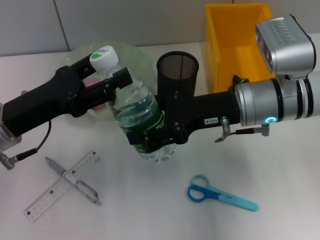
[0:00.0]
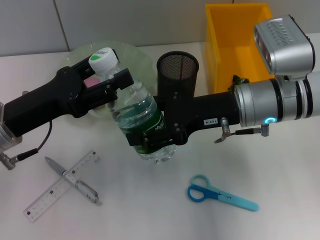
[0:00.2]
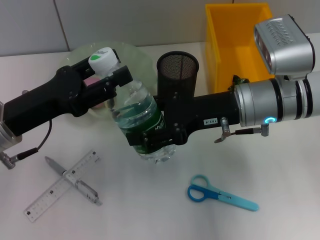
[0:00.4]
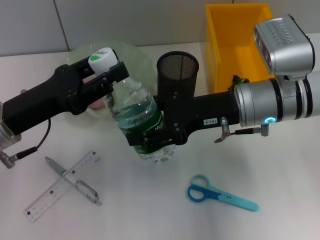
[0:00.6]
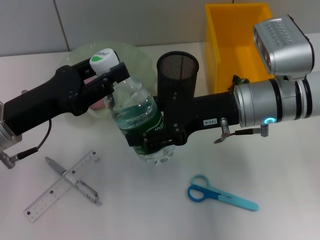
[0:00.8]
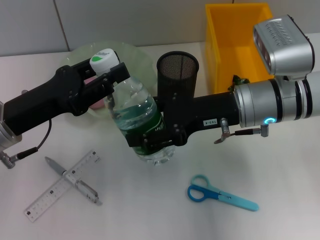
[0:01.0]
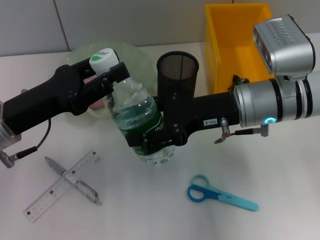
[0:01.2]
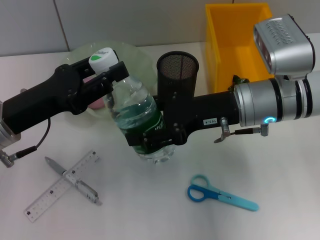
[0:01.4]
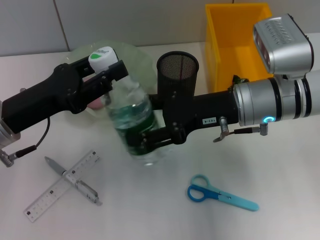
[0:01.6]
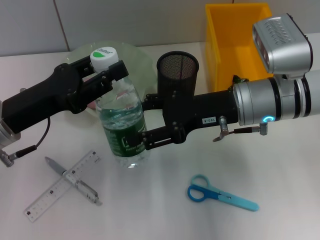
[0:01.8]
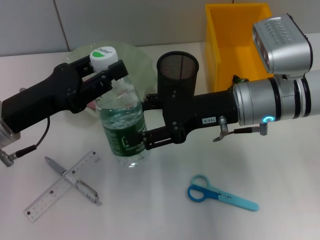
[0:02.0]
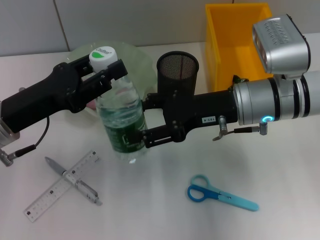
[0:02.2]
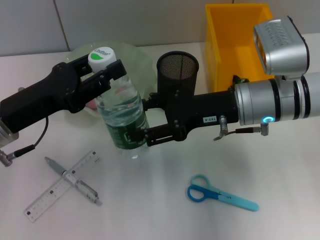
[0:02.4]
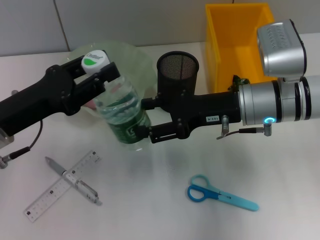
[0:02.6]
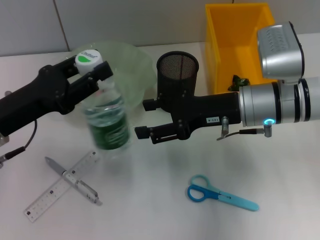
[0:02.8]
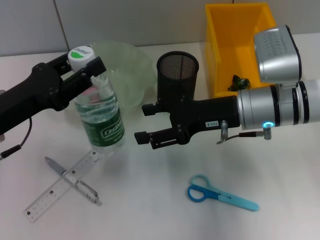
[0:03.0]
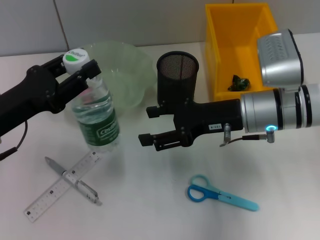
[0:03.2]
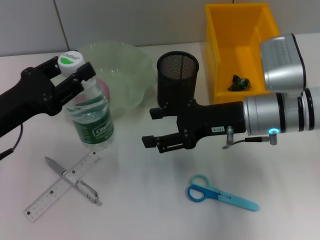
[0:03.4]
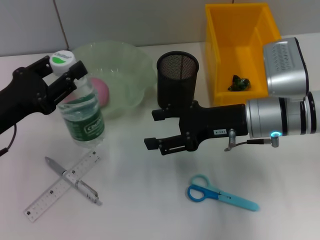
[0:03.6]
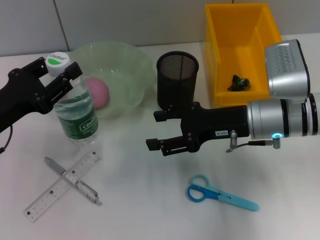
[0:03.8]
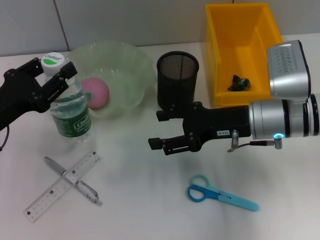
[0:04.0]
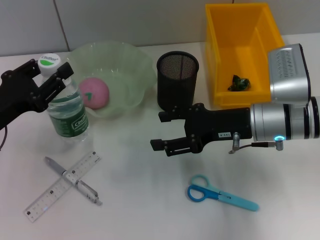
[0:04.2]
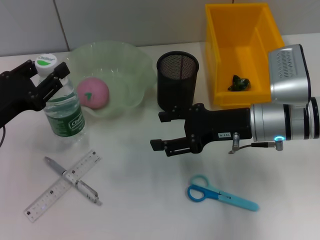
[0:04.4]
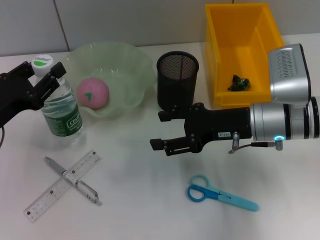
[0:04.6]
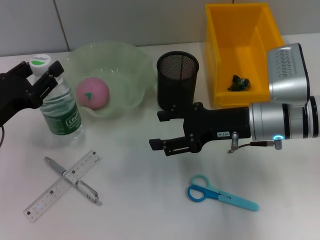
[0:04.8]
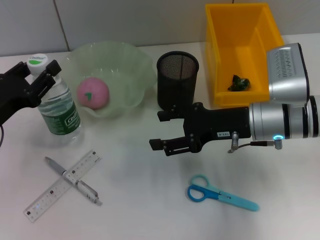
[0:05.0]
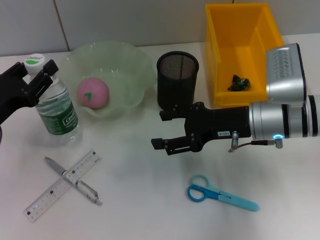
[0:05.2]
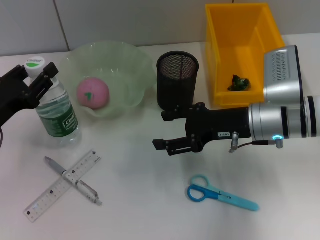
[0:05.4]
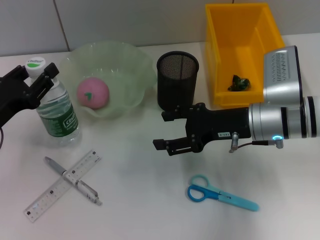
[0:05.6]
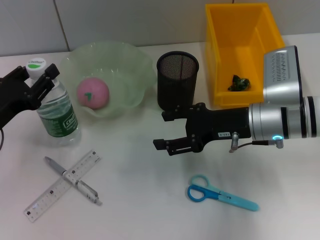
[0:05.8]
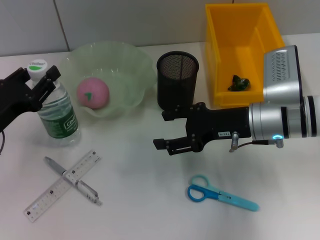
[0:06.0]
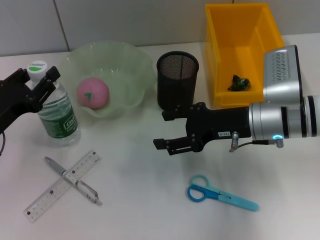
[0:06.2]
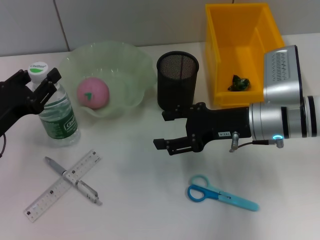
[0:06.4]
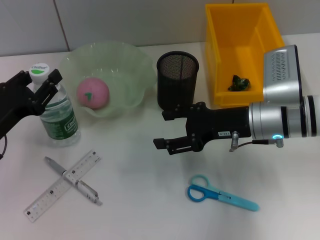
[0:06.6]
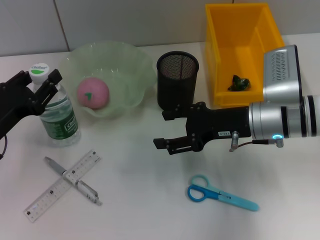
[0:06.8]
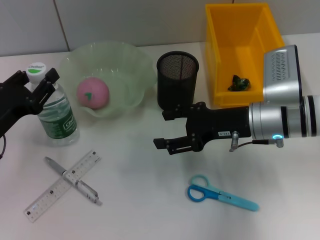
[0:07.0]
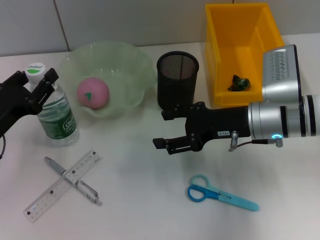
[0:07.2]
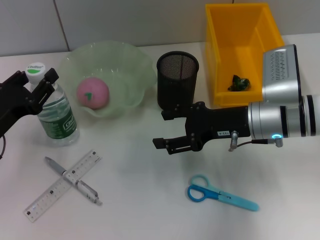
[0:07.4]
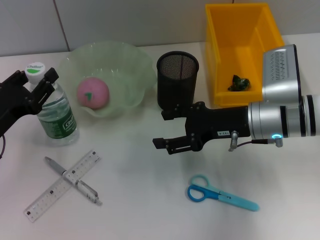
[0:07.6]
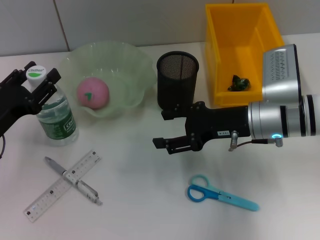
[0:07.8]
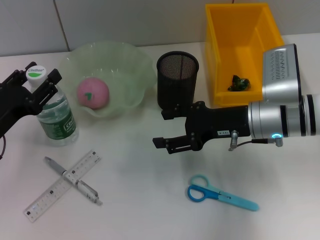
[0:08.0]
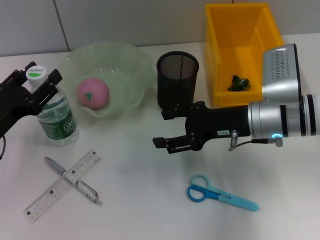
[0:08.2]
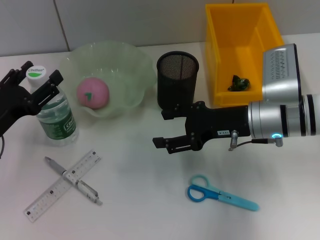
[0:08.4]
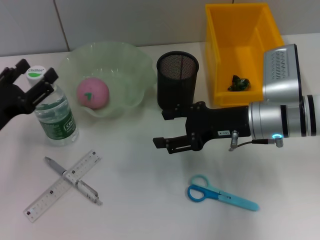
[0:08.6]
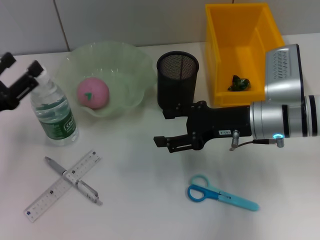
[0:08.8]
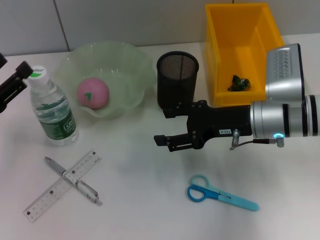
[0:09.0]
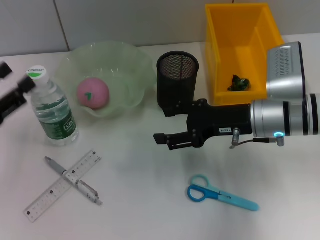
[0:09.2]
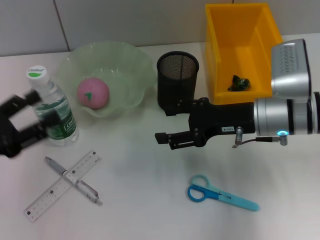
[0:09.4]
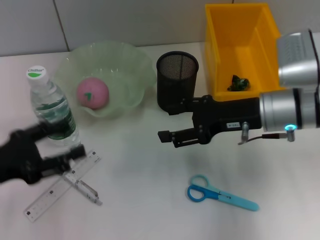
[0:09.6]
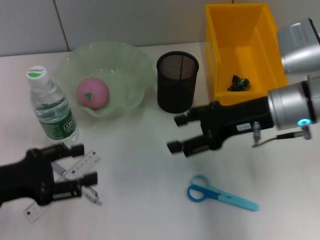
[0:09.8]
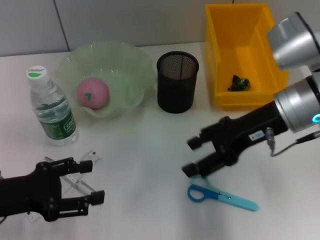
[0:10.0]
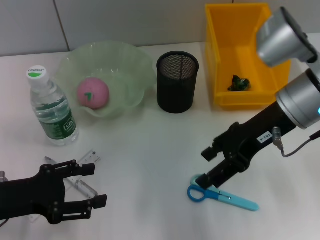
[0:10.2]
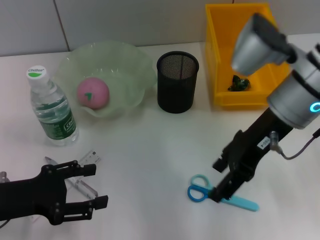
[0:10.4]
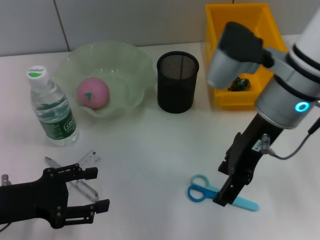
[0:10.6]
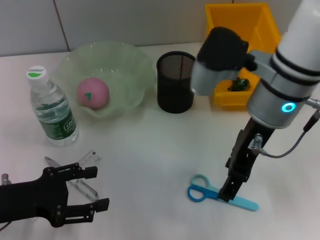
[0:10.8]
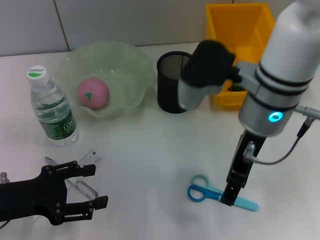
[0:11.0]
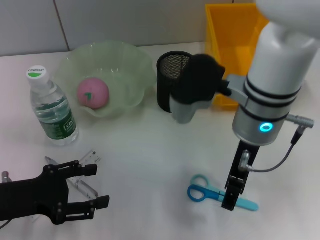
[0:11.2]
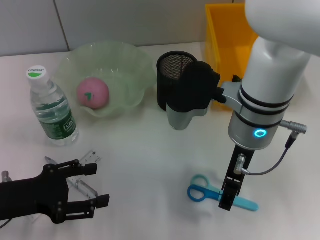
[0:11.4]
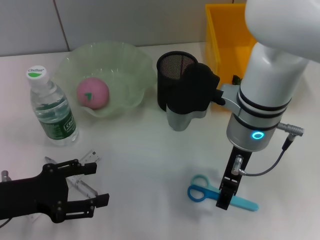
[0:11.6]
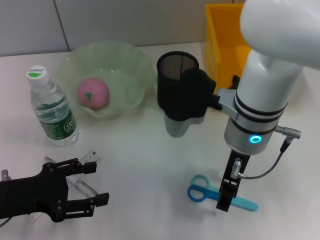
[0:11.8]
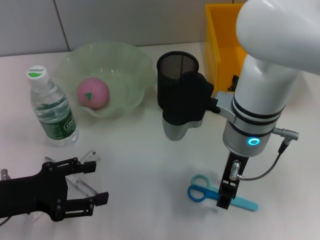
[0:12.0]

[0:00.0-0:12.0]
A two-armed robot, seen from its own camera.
Step, 0:00.0 to 0:02.2: Pass the water bottle from the right hand to the left hand.
Step, 0:02.6 to 0:07.8: Place the water bottle on the table with the left hand.
0:00.0 to 0:01.6: The left gripper closes its fingers.
0:01.6 to 0:03.0: The grippers stay close to where they were, moving slightly.
0:04.4 to 0:06.0: The grippers stay close to where they were, moving slightly.
0:06.0 to 0:07.6: Neither gripper changes place.
0:07.6 to 0:09.0: There are only small adjustments of the grippers.
0:09.0 to 0:10.4: The left gripper ends up approximately 5 cm from where it was. The right gripper heads upward, covering about 10 cm.
0:10.4 to 0:12.0: The right gripper travels to the left by roughly 5 cm.

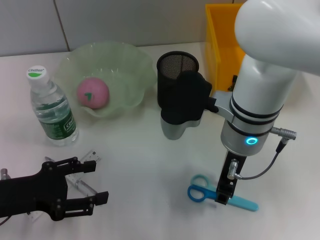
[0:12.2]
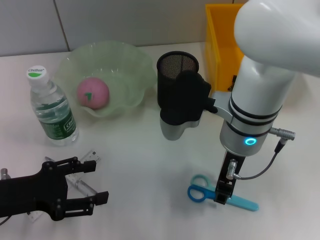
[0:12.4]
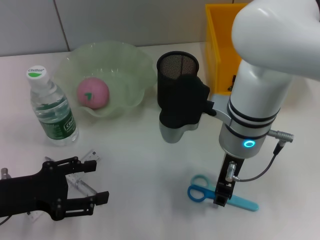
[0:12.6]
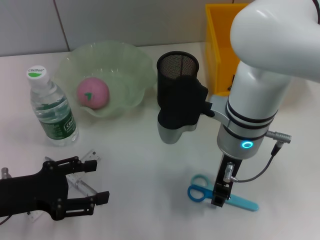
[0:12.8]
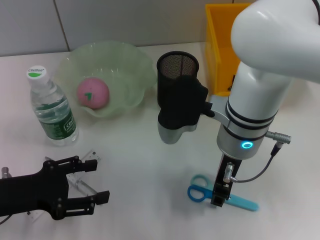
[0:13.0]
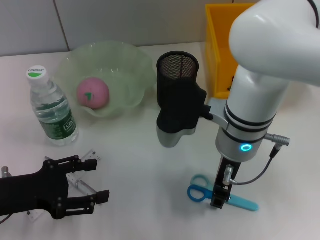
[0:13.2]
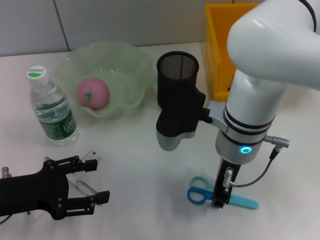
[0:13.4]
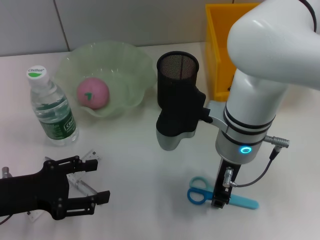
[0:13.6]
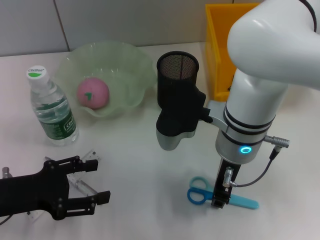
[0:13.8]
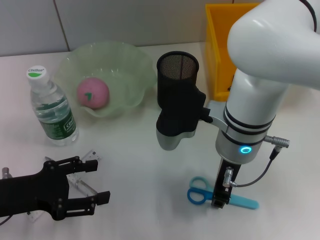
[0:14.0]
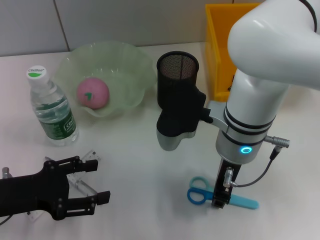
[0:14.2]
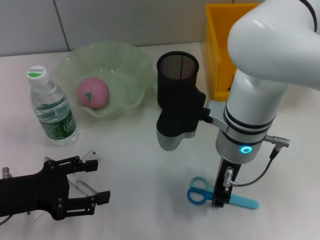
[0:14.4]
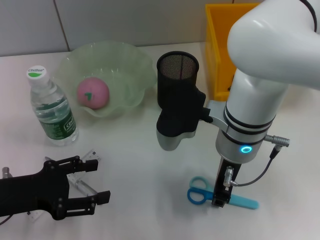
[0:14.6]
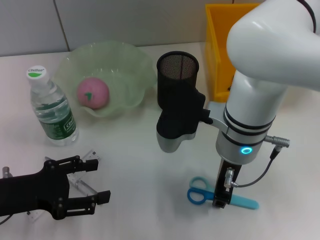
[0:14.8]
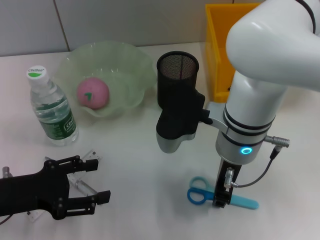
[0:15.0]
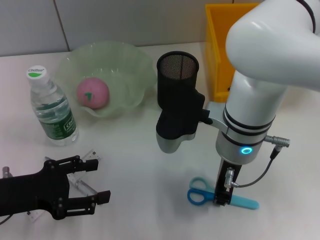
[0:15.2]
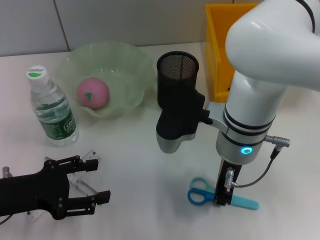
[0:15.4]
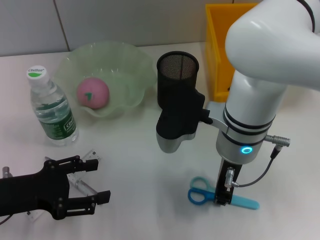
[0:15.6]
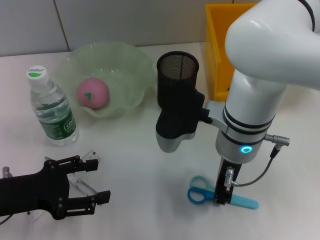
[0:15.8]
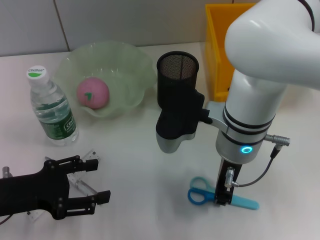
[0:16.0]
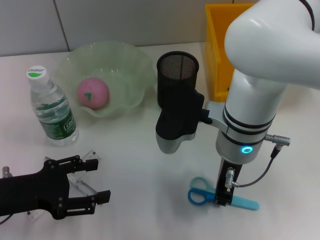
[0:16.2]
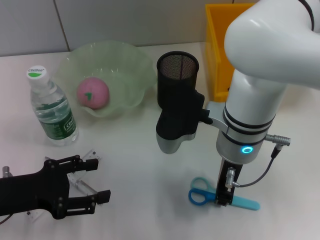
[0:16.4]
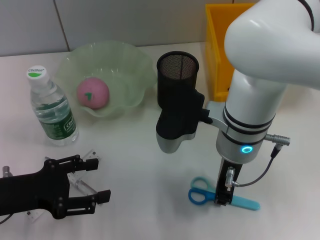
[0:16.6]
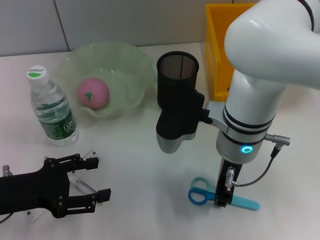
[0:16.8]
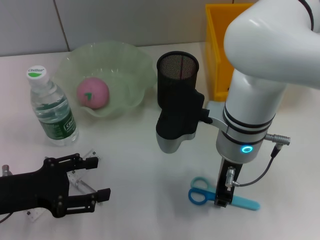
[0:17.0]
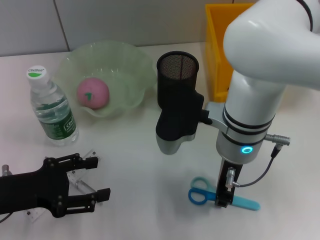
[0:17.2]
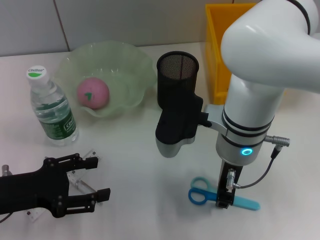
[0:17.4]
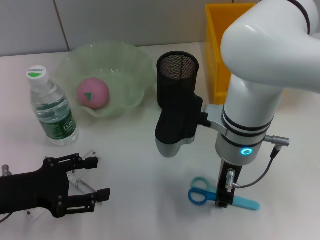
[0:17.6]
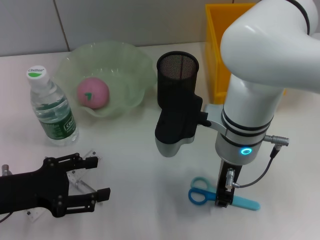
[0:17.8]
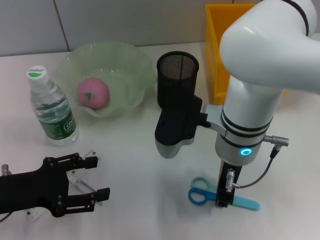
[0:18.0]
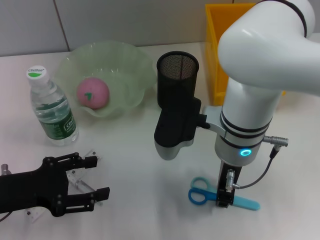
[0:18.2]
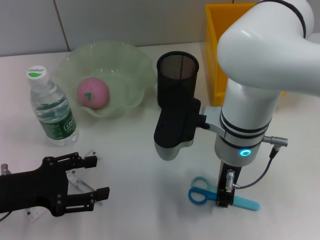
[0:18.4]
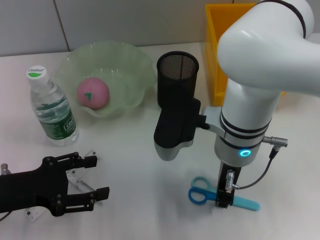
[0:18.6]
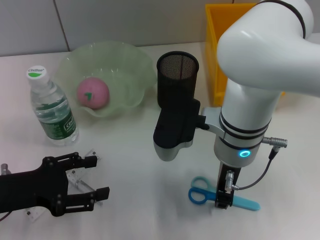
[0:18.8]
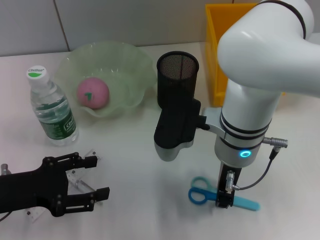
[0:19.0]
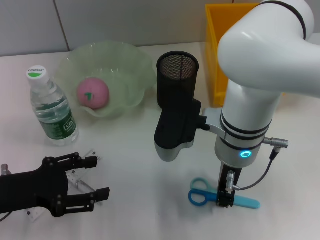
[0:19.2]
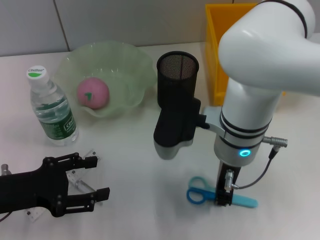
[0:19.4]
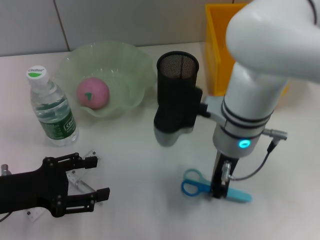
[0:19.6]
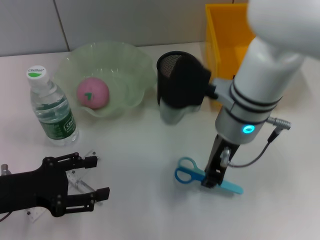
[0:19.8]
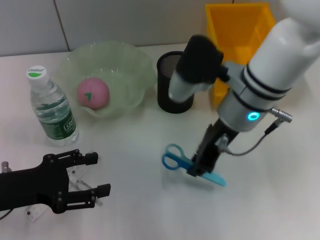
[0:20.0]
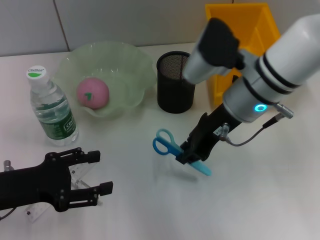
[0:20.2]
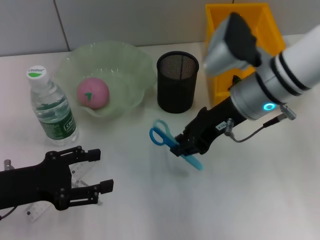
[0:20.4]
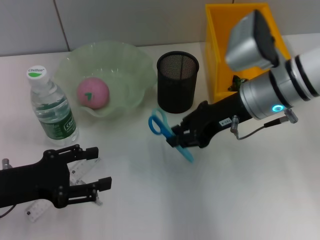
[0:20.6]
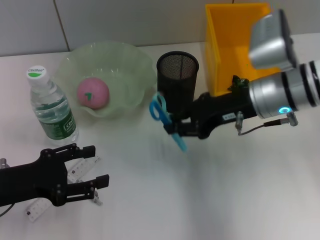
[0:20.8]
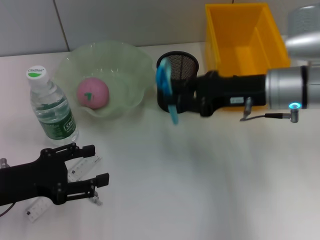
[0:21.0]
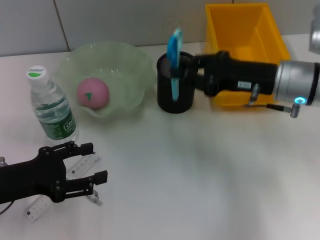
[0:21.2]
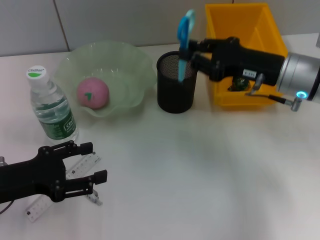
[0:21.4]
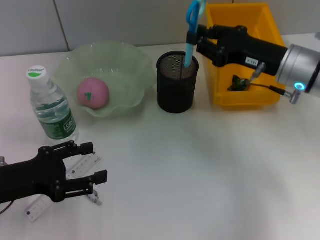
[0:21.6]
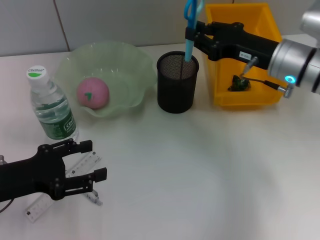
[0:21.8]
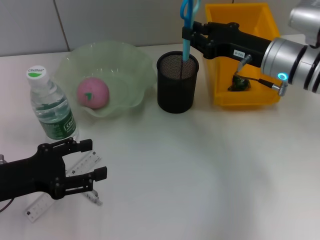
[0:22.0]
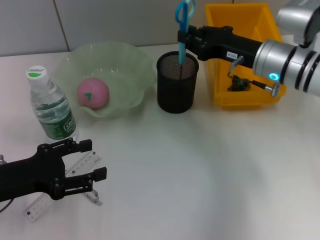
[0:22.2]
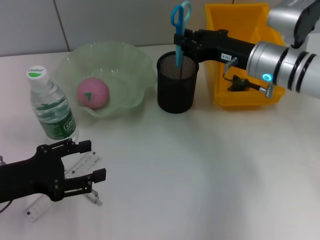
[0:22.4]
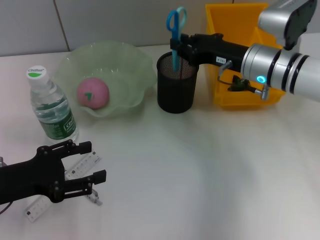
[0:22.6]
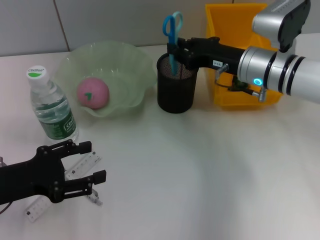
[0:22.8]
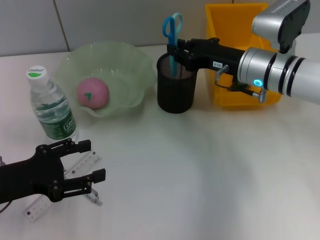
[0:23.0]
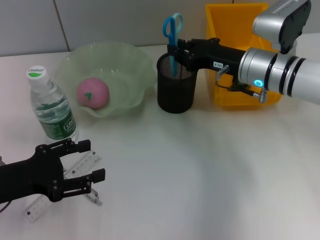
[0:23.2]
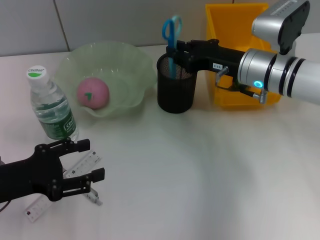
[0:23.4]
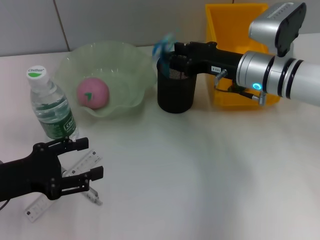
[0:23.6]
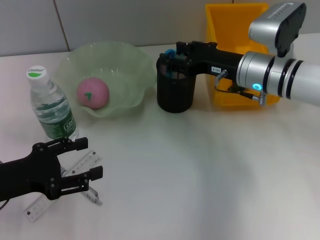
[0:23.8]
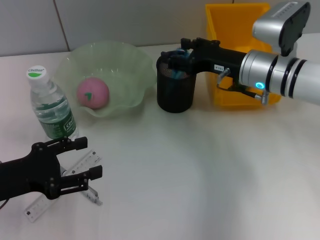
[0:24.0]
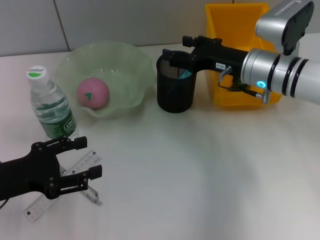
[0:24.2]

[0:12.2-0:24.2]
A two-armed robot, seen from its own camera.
Step, 0:12.2 to 0:19.0: Grab the blue scissors with the right hand.
Step, 0:19.2 to 0:23.8: Place the blue scissors into the pen holder with the right hand.
0:12.2 to 0:13.8: Neither gripper changes place.
0:13.8 to 0:16.6: Both grippers stay put.
0:16.6 to 0:18.2: The two grippers keep their place.
0:19.8 to 0:21.2: The right gripper travels to the right by roughly 10 cm.
0:21.2 to 0:22.6: The right gripper travels forward by roughly 5 cm.
0:22.6 to 0:24.2: The right gripper opens its fingers.
